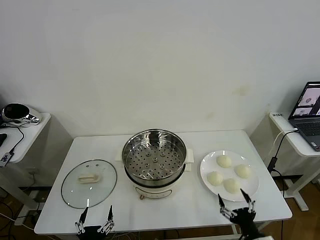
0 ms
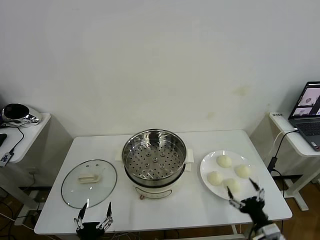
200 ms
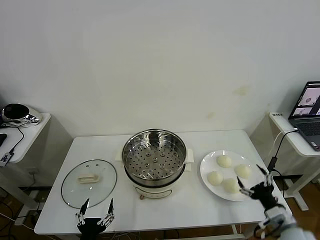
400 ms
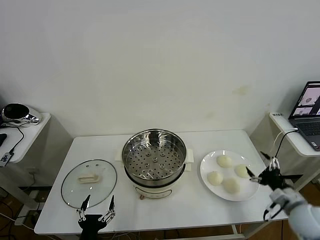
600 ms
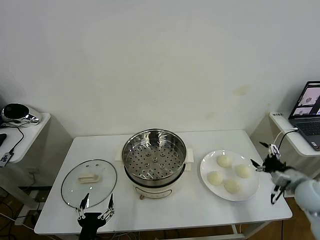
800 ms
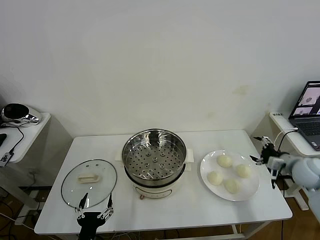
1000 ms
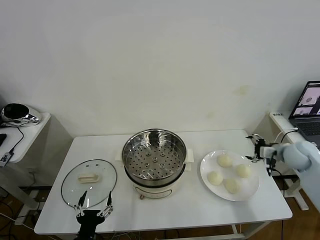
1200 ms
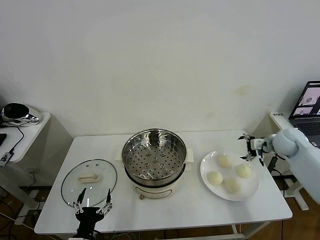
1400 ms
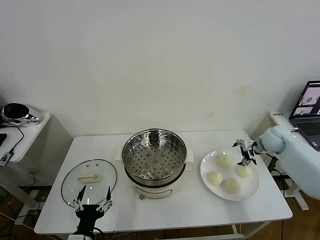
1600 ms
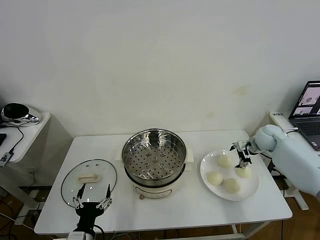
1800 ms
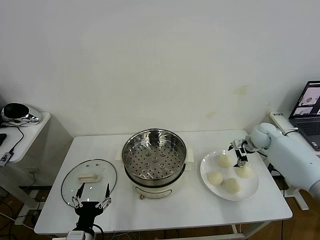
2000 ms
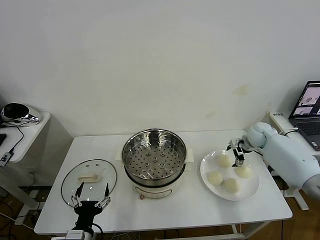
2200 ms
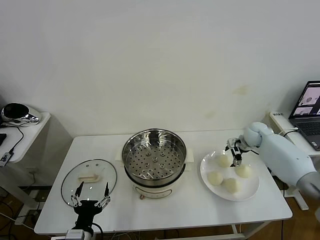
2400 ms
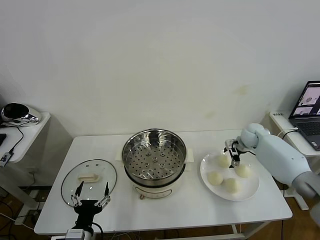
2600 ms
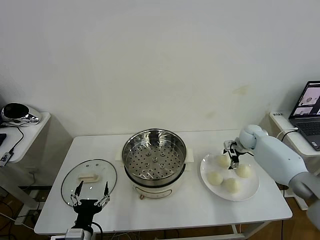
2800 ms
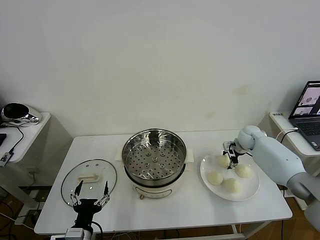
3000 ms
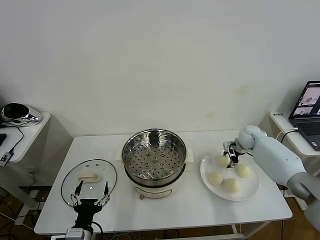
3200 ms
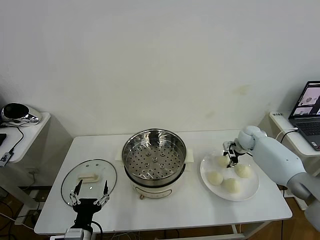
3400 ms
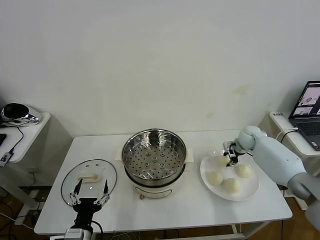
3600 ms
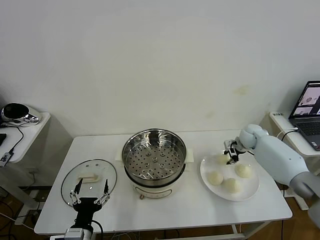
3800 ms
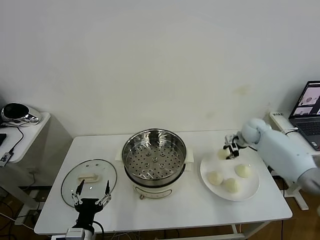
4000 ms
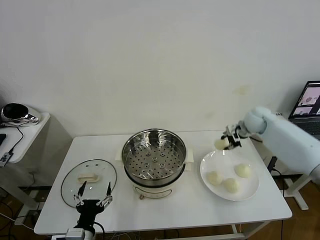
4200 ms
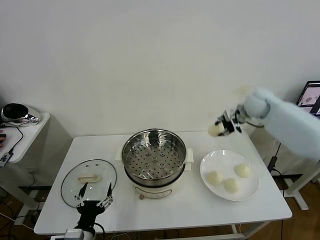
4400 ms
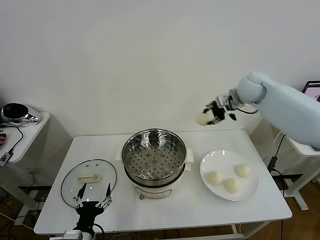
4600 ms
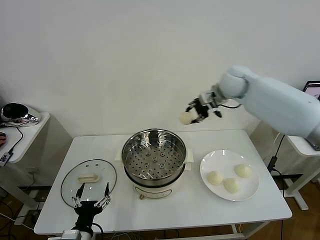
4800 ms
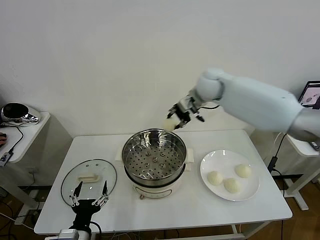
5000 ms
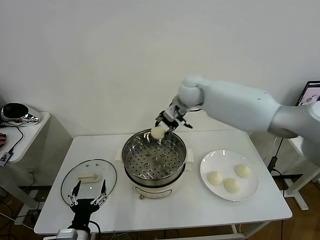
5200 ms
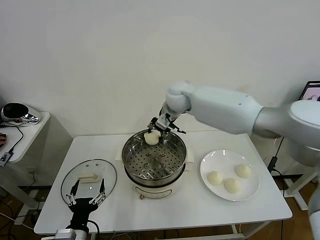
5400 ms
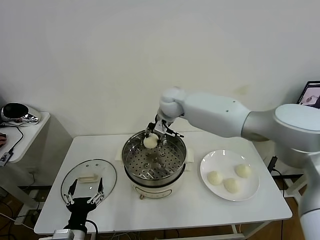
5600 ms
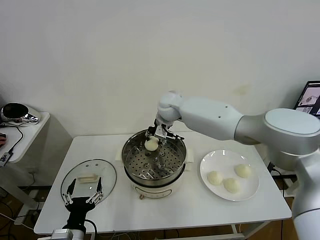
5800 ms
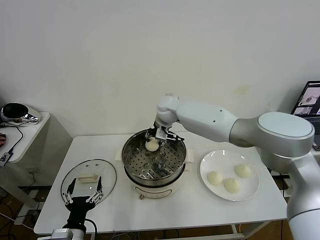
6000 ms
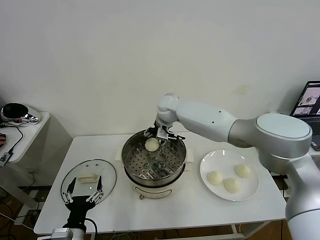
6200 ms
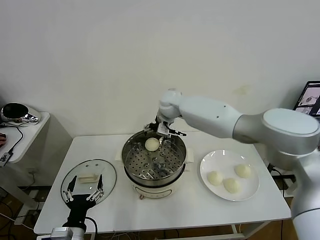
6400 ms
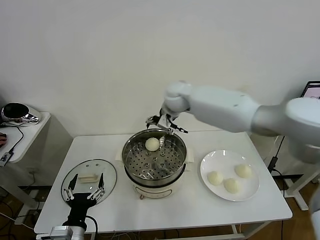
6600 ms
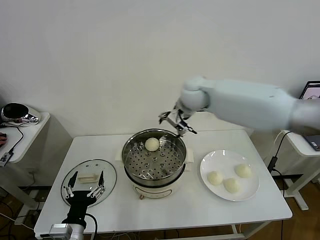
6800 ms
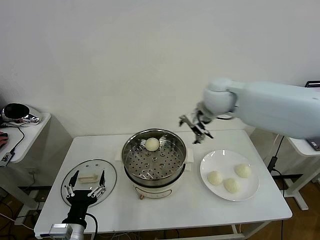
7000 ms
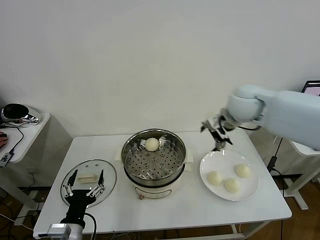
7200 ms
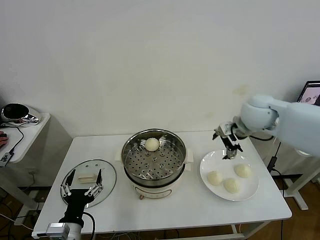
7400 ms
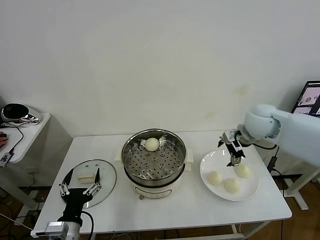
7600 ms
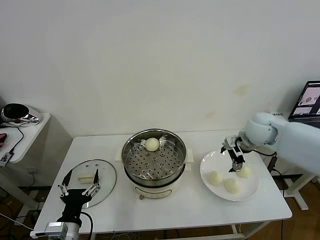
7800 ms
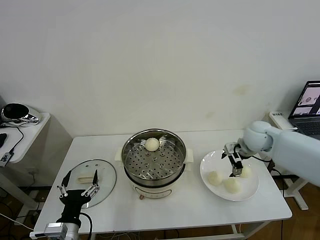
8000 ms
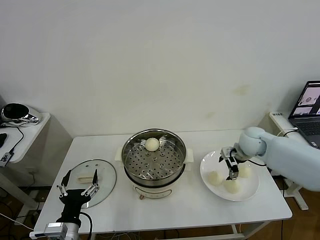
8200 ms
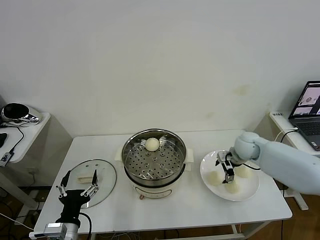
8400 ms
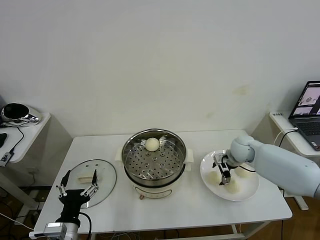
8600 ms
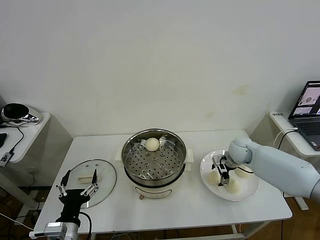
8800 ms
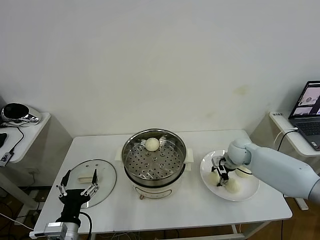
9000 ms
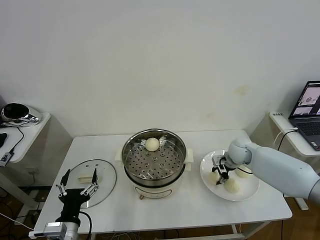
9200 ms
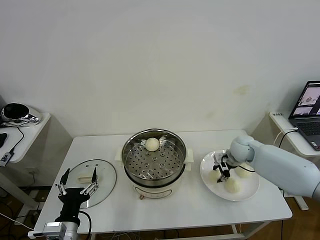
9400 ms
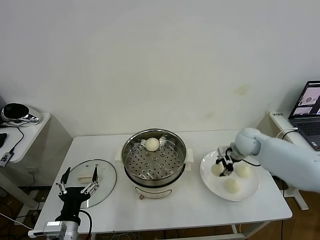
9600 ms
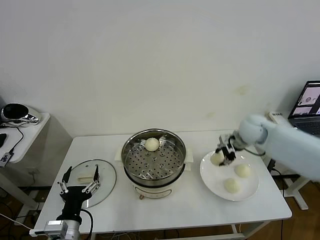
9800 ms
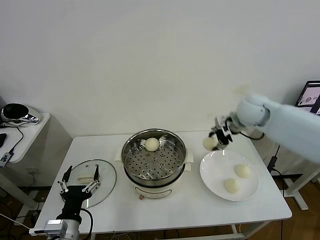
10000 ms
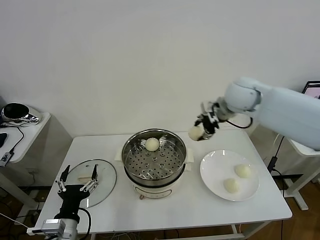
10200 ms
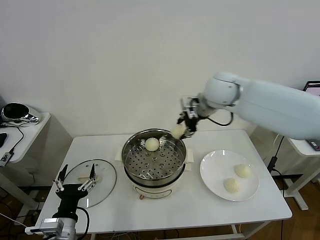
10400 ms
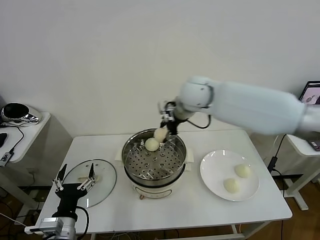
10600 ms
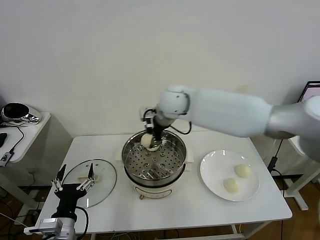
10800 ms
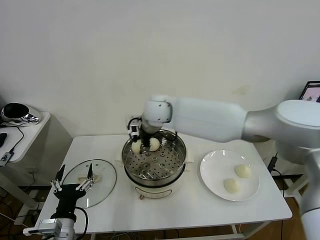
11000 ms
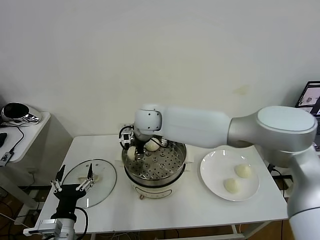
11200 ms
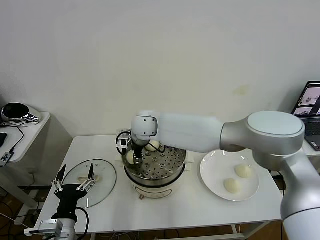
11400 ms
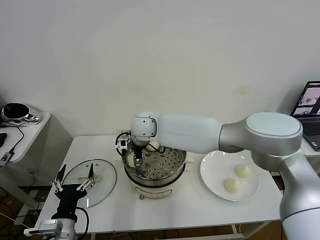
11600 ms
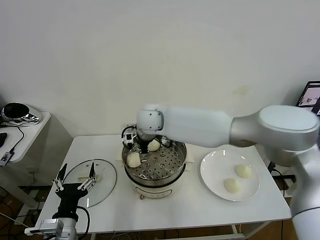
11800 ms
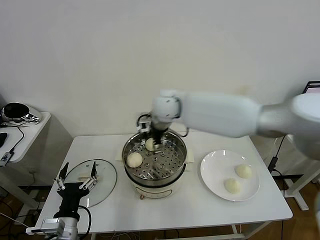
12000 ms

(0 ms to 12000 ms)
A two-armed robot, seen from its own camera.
Task of the whole recording: take steamed baozi put them in steamer then cover it.
Step, 0 ms - 3200 ms: Grasp the baozi in the plate with right gripper.
Step, 3400 ms - 6400 ms: Place the baozi on the steamer with right gripper.
Step, 6600 ms - 9200 ms: Grasp the baozi in the plate with right gripper.
Step, 9400 ms - 11600 ms: Place the baozi on the steamer with right gripper.
1600 ms - 3000 ms: The right gripper shifts by some 10 cm, and closes its fingers.
3000 ms - 4400 ms: The right gripper moves upward, approximately 20 cm, and closes.
4400 ms - 6000 ms: The right gripper goes some 30 cm to the left.
6000 ms - 7600 ms: The right gripper moves to the right, about 30 cm, and opens its fingers.
7600 ms - 9000 ms: The right gripper is displaced downward by about 15 cm, and closes its fingers.
9000 ms - 10400 ms: The right gripper goes roughly 30 cm upward and to the left.
10400 ms - 12000 ms: The right gripper travels to the left by approximately 10 cm, and opens its fingers.

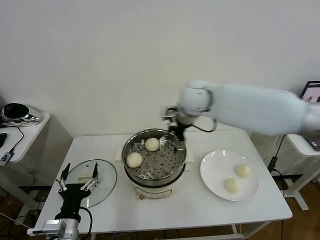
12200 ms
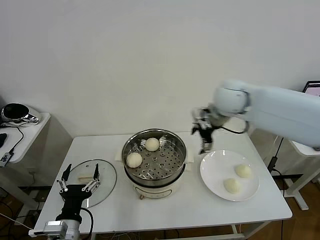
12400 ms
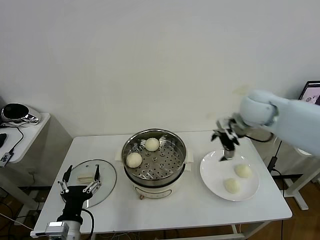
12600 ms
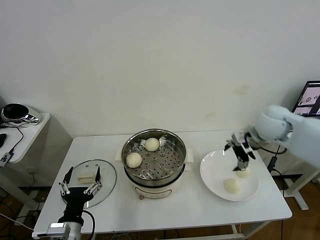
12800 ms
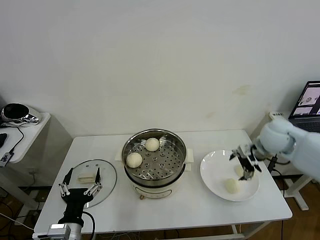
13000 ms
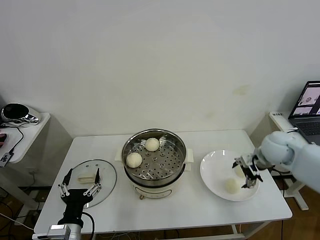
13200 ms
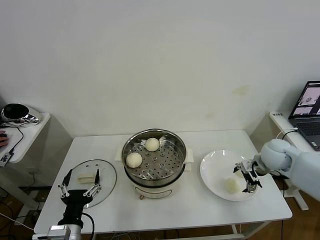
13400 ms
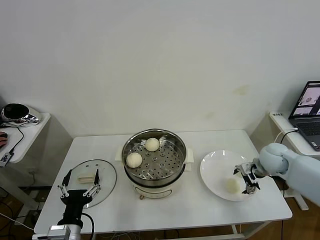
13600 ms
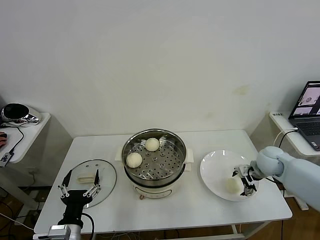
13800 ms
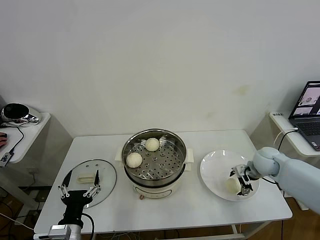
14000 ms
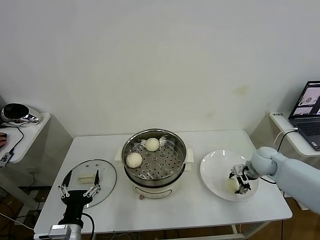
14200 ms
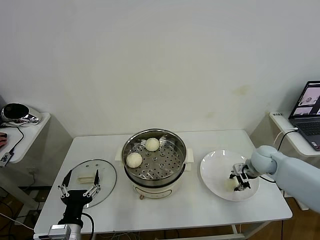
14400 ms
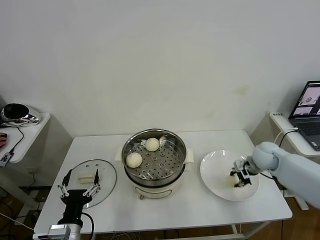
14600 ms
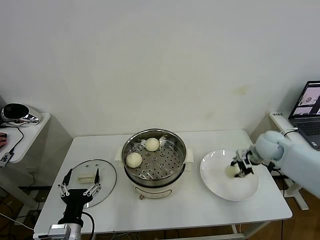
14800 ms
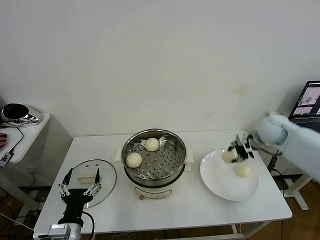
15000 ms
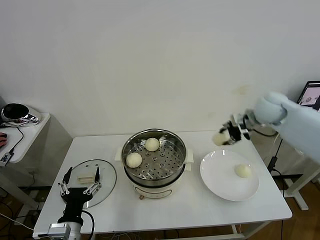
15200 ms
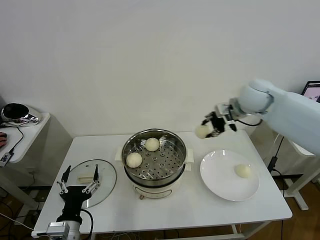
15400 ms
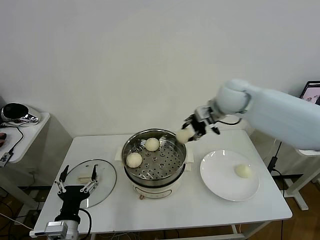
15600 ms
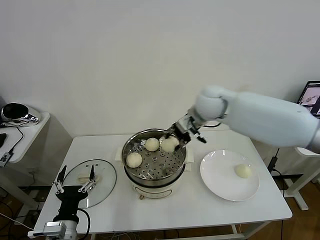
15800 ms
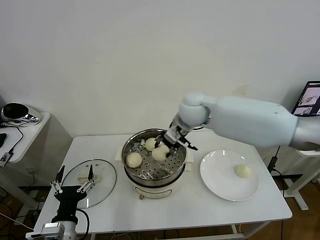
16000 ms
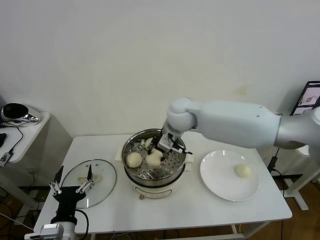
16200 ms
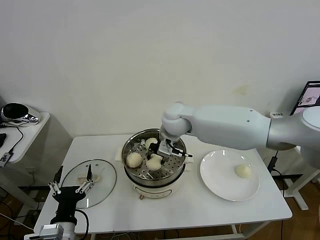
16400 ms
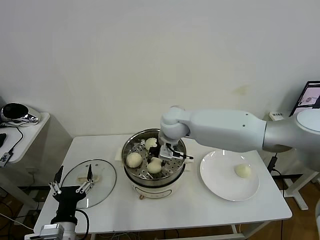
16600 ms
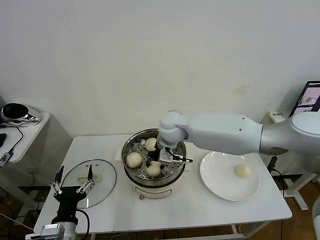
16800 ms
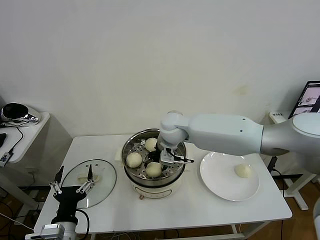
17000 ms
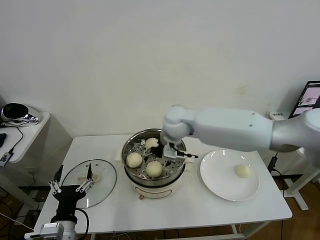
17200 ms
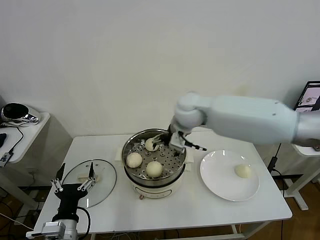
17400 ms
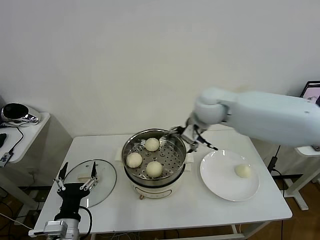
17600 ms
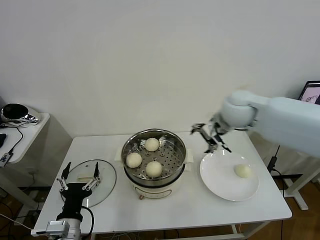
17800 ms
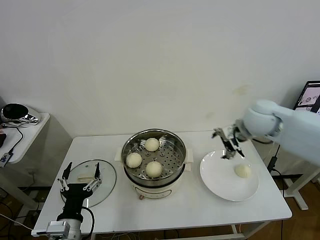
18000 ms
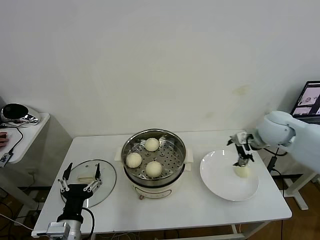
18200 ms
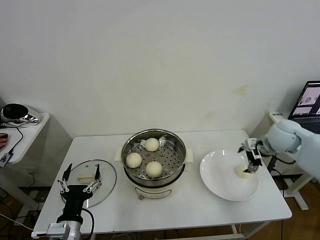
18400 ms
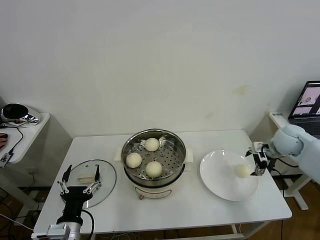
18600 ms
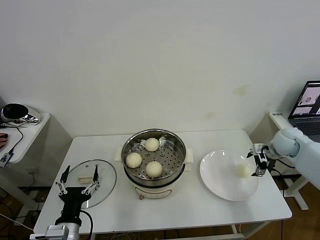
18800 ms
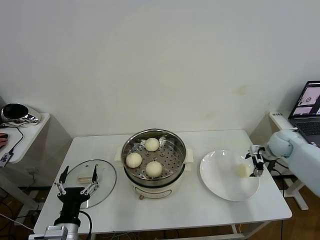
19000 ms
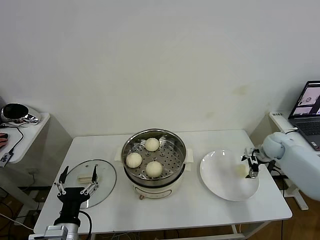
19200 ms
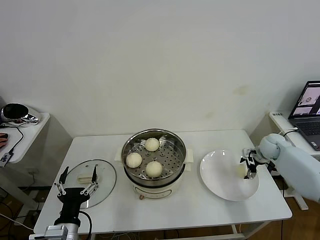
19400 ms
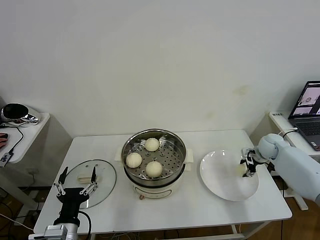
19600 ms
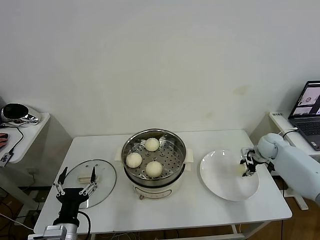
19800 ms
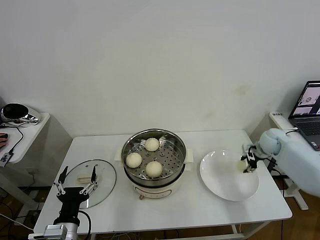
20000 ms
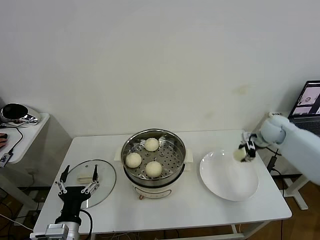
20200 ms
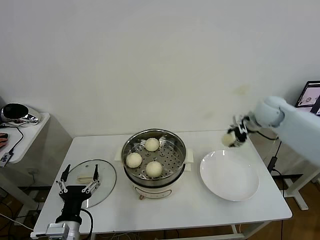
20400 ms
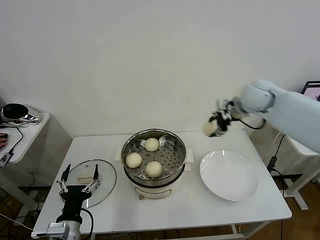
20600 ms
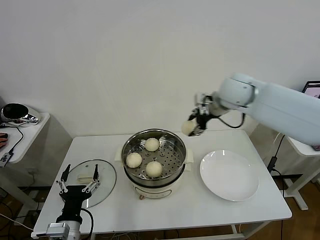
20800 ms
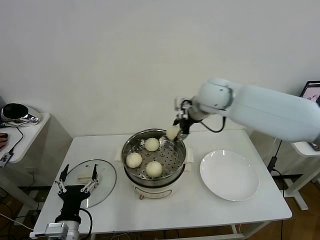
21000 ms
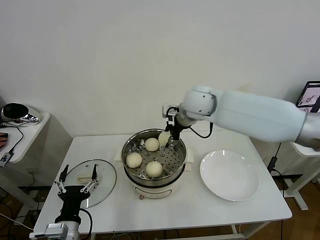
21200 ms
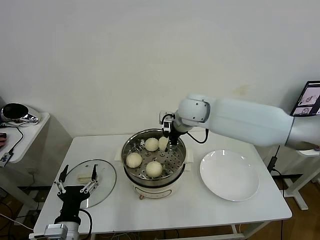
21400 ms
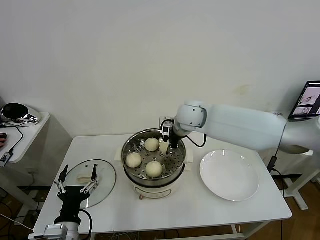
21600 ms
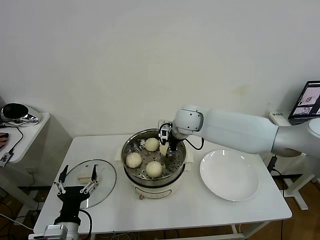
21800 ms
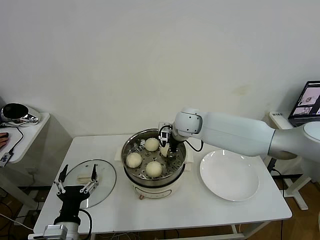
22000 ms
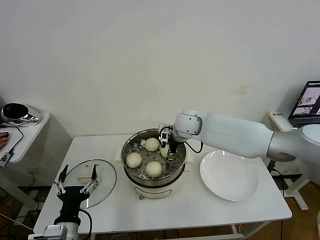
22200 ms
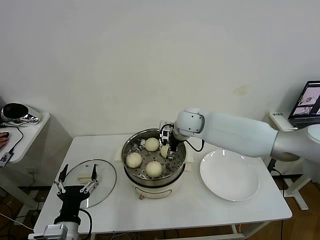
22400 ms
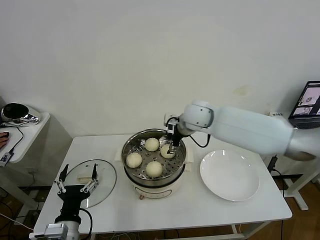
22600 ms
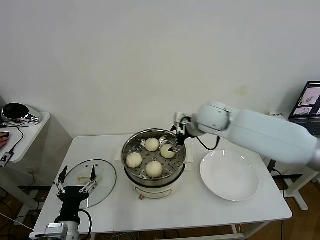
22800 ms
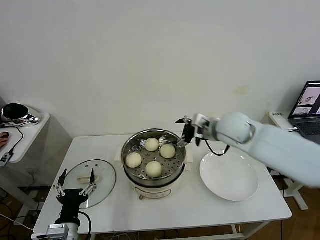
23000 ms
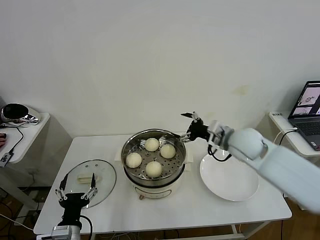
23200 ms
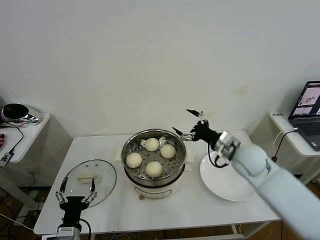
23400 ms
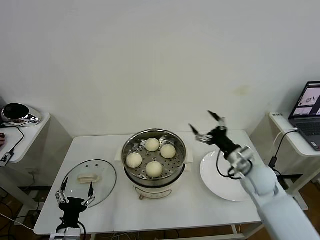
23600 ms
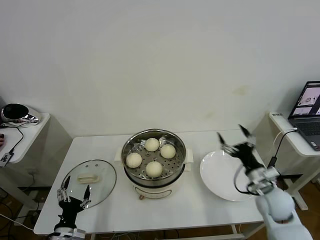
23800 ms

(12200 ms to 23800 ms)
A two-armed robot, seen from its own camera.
Task of the whole recording: take steamed baozi put them in steamer then cover it.
Step, 12200 ms - 14600 ms: Grasp the baozi in the plate with right gripper.
Step, 14800 ms - 17200 ms: Place the baozi on the steamer with right gripper.
Step, 17400 ms - 19600 ms: Grasp the baozi in the plate with right gripper.
Step, 20000 ms - 22200 ms: Place the baozi on the steamer with right gripper.
12200 ms - 13600 ms: The right gripper shifts roughly 35 cm to the right and downward.
13600 ms - 15000 ms: The right gripper goes approximately 10 cm upward and forward, and closes its fingers.
15000 ms - 16600 ms: The right gripper travels to the left by some 35 cm.
16600 ms - 18000 ms: The right gripper heads to the right, covering about 25 cm, and opens up.
18000 ms - 19400 ms: The right gripper travels downward and to the right by some 25 cm.
19400 ms - 21000 ms: The right gripper is displaced to the left and upward by roughly 40 cm, and closes its fingers.
21000 ms - 22400 ms: The right gripper moves downward and to the left, approximately 10 cm, and opens its fingers.
22400 ms - 23800 ms: The left gripper is displaced downward by roughly 10 cm, while the right gripper goes about 35 cm to the right, backward and downward.
